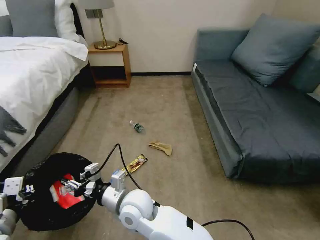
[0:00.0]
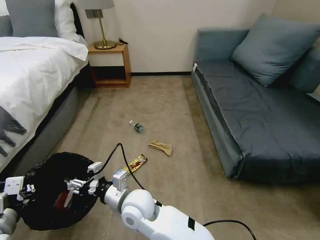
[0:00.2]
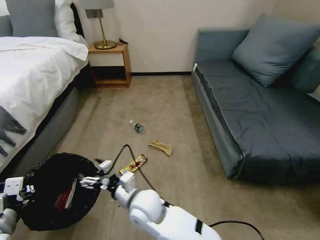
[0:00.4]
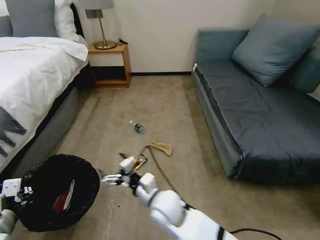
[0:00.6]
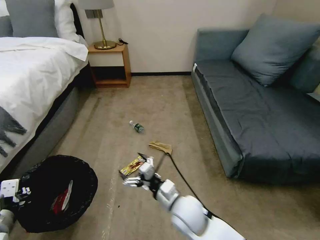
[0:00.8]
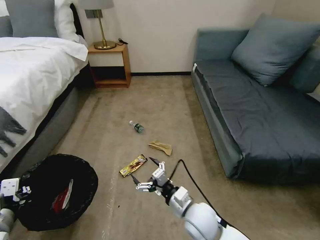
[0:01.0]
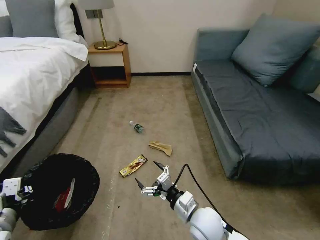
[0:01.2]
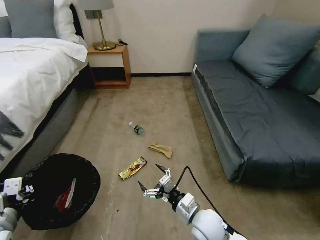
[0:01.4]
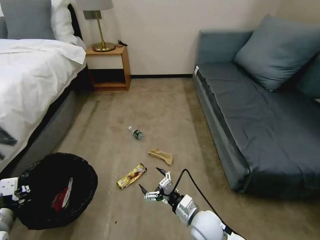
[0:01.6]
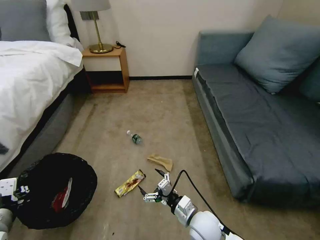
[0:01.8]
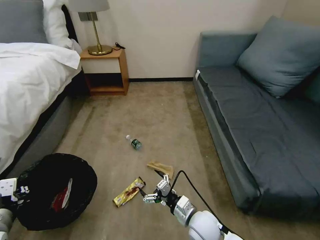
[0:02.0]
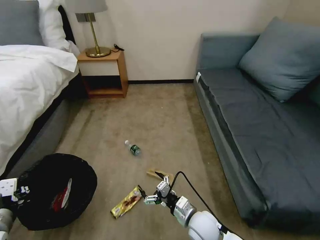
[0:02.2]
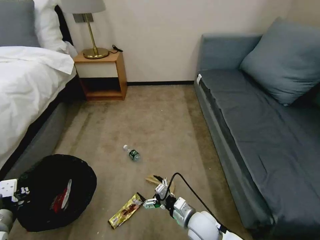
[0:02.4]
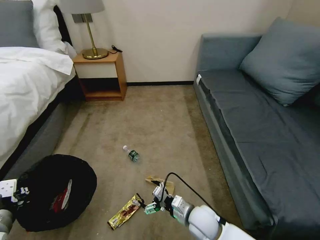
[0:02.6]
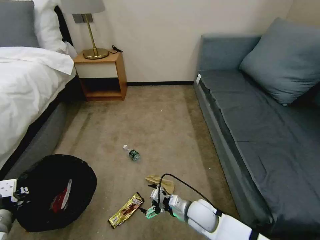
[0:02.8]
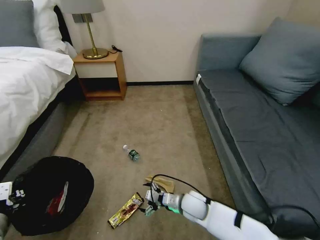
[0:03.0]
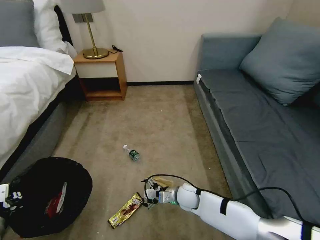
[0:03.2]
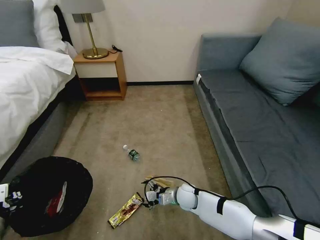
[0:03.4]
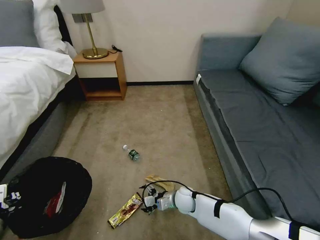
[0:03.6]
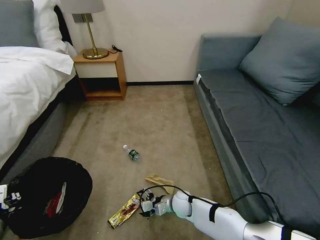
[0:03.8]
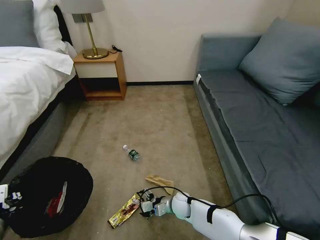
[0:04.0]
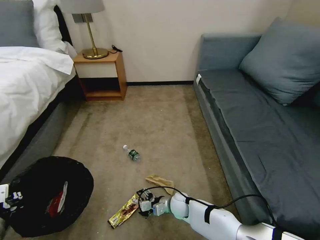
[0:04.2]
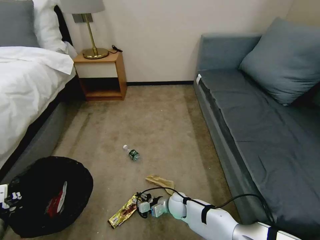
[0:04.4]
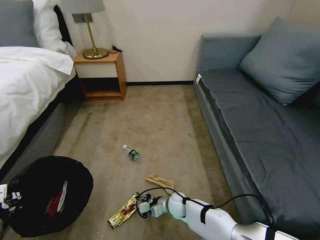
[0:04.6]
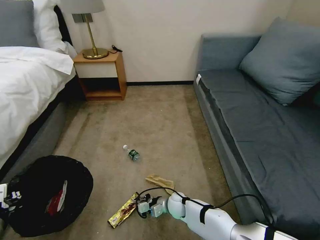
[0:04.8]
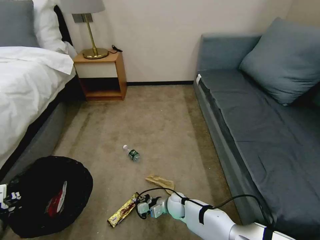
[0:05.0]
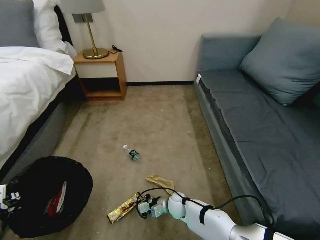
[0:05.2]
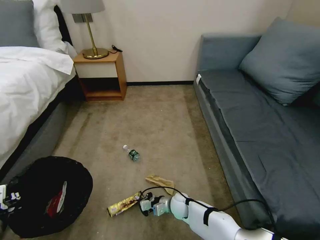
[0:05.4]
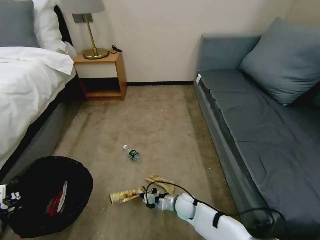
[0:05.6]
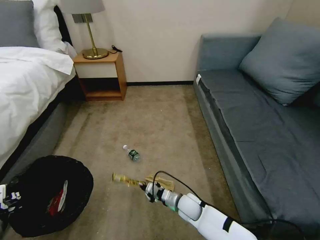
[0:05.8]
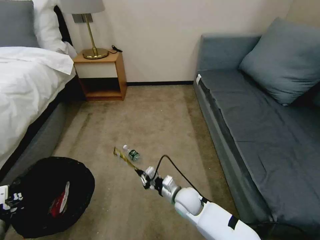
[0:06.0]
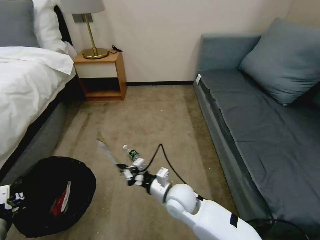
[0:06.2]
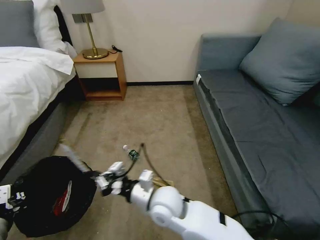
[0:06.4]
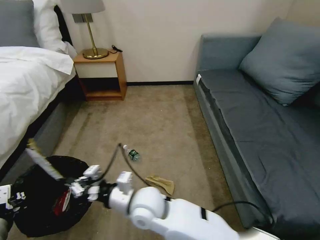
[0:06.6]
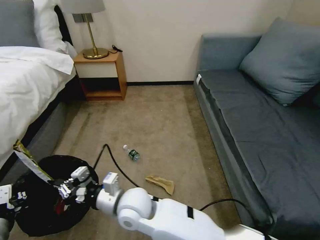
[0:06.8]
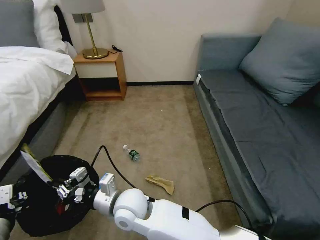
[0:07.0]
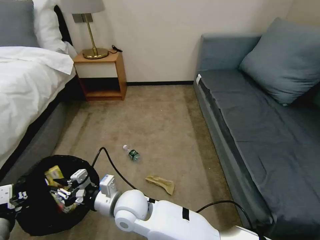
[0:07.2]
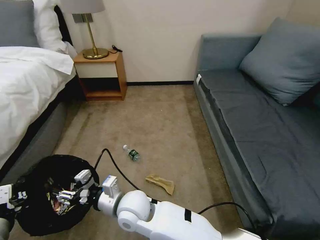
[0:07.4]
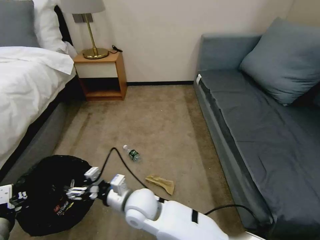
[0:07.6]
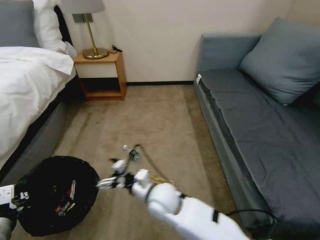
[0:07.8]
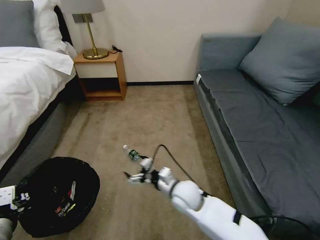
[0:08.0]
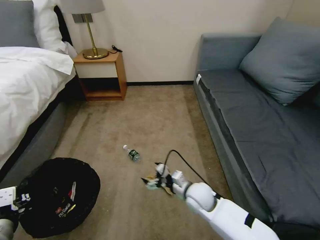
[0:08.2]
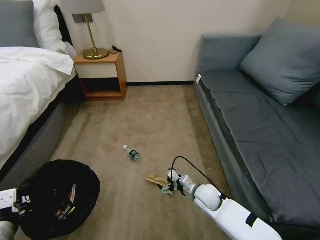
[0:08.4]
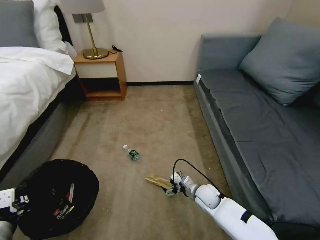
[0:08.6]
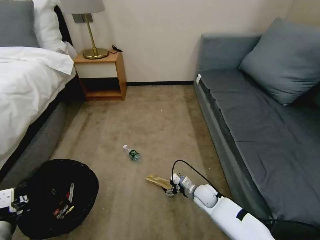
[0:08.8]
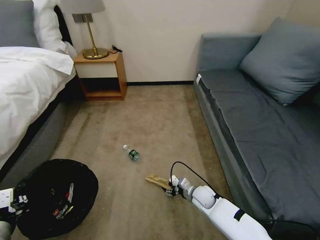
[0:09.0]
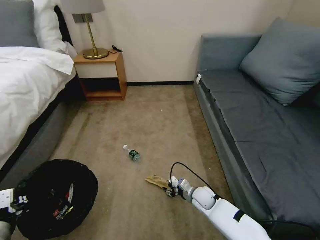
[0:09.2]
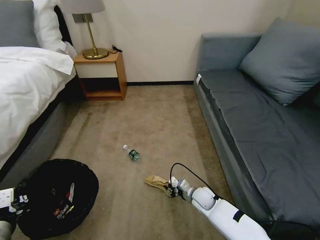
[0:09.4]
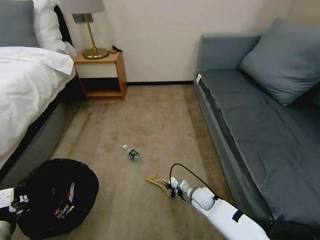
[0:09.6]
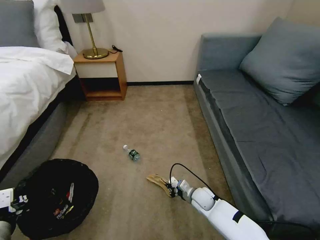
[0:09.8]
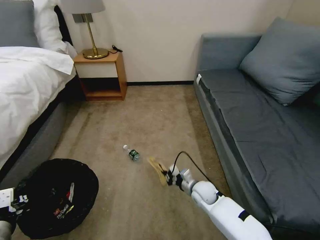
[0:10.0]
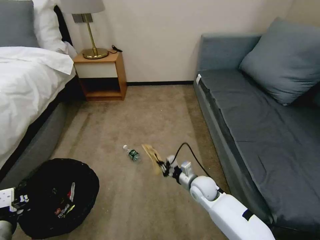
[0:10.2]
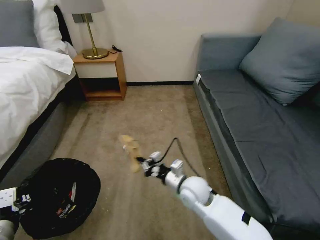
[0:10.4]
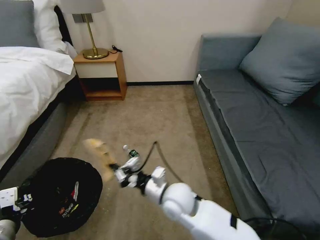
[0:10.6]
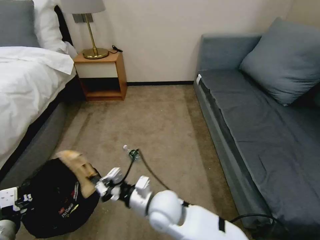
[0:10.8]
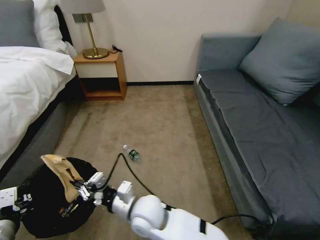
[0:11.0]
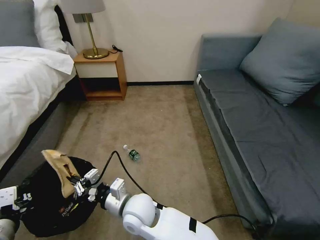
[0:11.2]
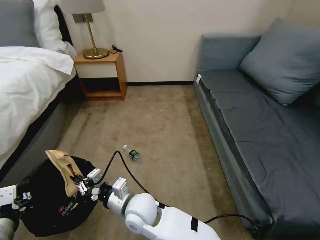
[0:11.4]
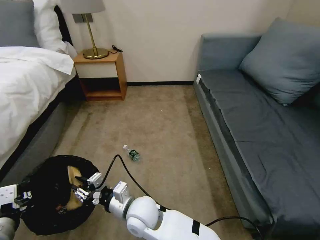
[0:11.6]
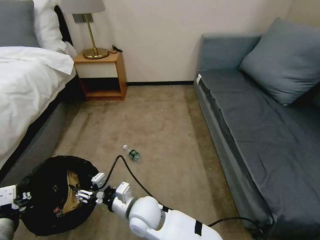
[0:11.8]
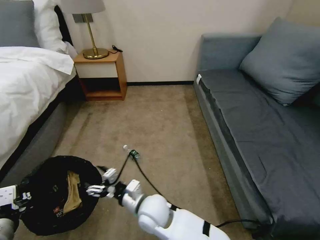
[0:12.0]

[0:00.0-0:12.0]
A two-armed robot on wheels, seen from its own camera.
Task of the whole recording: Pick up the trash bin, then pick up the garbage on the floor and place it into the trash bin.
0:00.0 to 0:01.6: The right gripper heads to the right, covering roughly 20 cm, and opens up.
0:01.6 to 0:03.0: The right gripper heads forward and downward, covering about 10 cm.
0:03.0 to 0:04.4: The right gripper is displaced downward by approximately 10 cm.
0:04.4 to 0:06.0: The right gripper travels upward by some 10 cm, and closes.
0:06.0 to 0:07.6: The right gripper goes approximately 20 cm to the left and upward, and opens its fingers.
0:07.6 to 0:09.0: The right gripper travels to the right and downward by some 30 cm.
0:09.0 to 0:10.4: The right gripper shifts approximately 15 cm upward and to the left, and closes up.
0:10.4 to 0:12.0: The right gripper is displaced to the left and backward by some 15 cm, and opens its fingers.

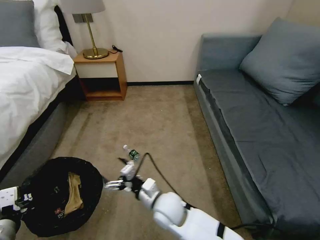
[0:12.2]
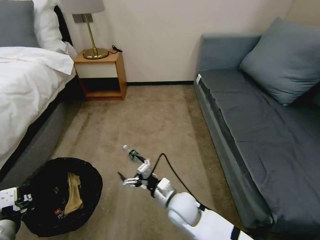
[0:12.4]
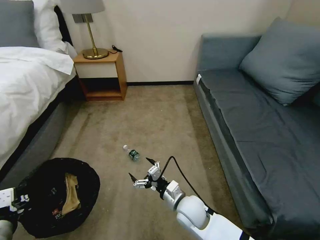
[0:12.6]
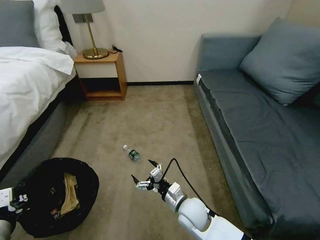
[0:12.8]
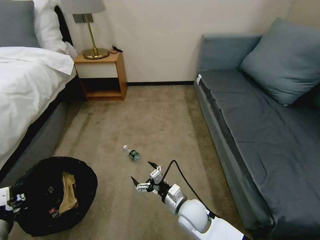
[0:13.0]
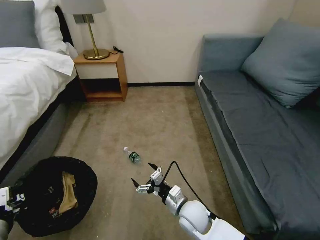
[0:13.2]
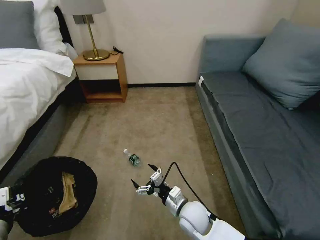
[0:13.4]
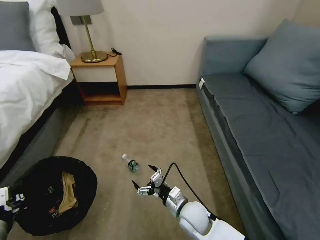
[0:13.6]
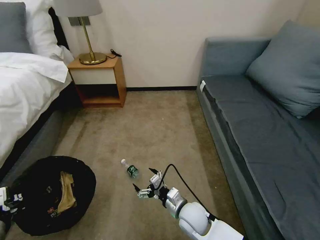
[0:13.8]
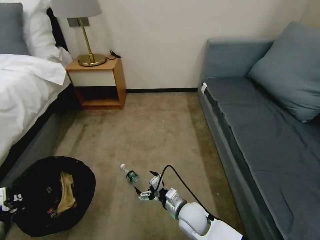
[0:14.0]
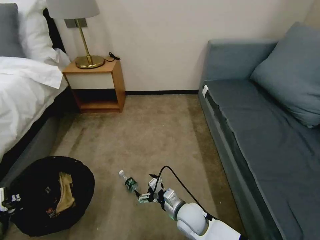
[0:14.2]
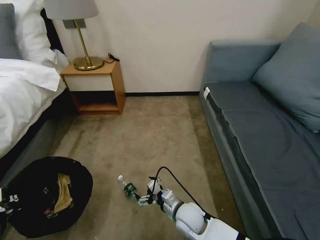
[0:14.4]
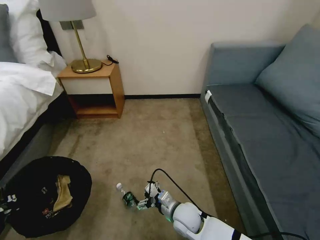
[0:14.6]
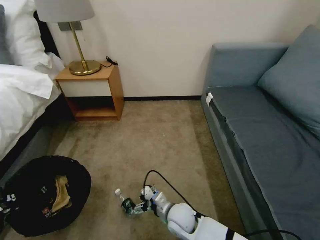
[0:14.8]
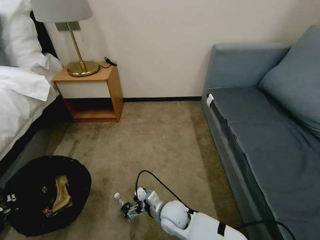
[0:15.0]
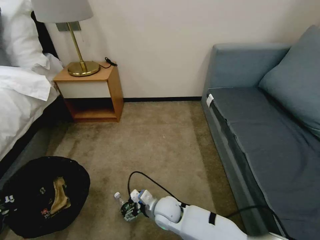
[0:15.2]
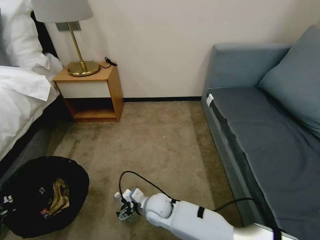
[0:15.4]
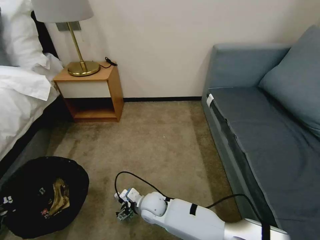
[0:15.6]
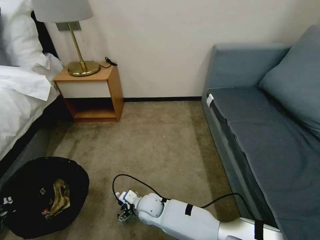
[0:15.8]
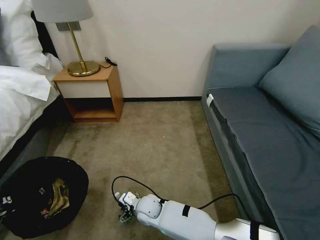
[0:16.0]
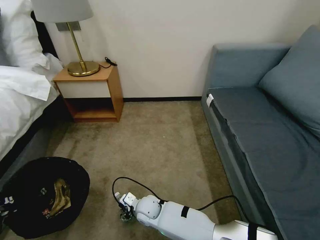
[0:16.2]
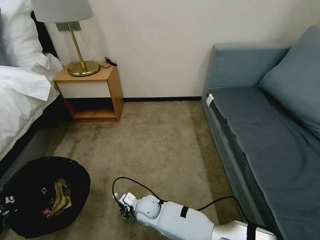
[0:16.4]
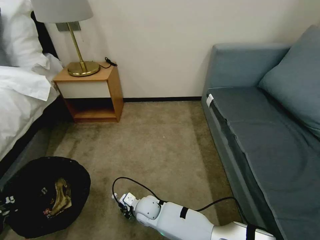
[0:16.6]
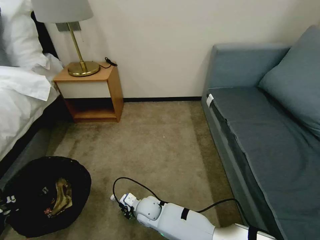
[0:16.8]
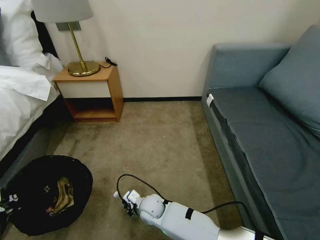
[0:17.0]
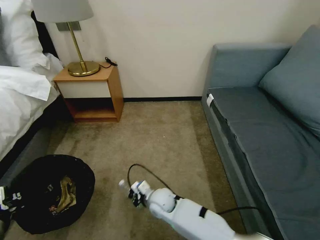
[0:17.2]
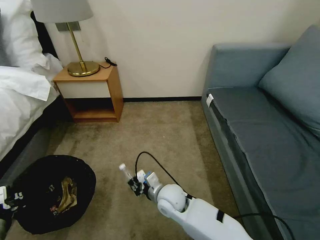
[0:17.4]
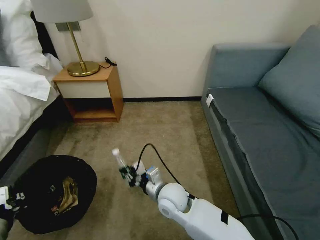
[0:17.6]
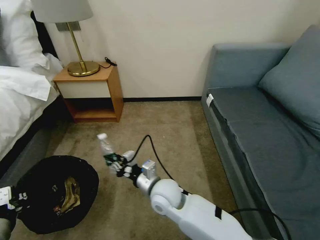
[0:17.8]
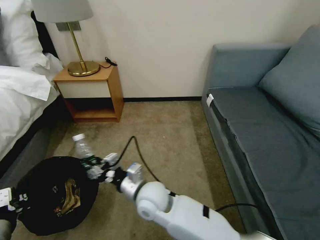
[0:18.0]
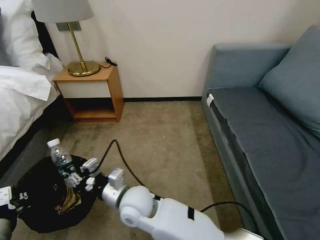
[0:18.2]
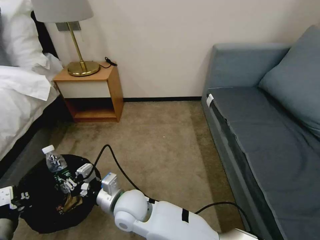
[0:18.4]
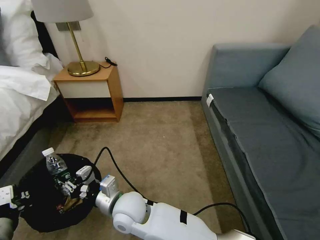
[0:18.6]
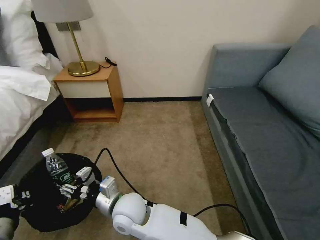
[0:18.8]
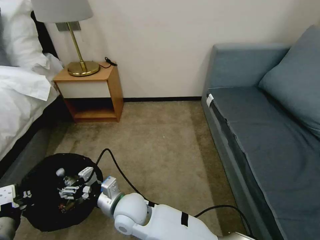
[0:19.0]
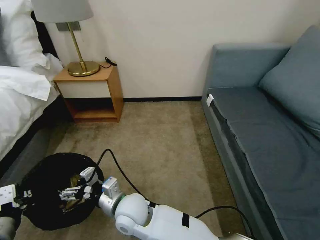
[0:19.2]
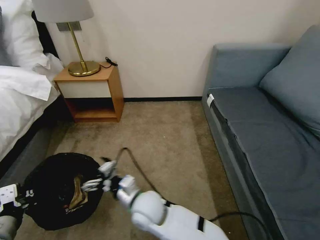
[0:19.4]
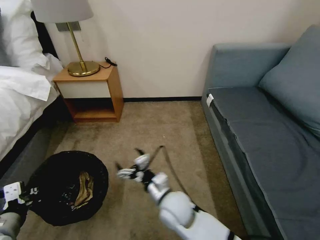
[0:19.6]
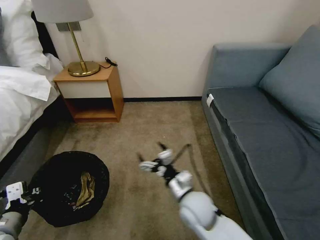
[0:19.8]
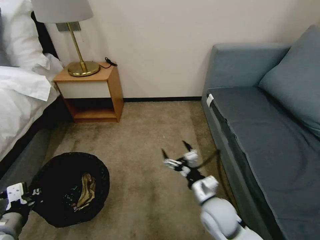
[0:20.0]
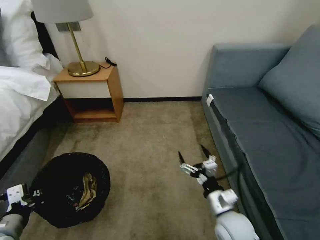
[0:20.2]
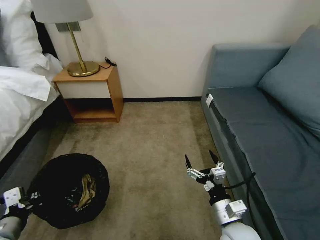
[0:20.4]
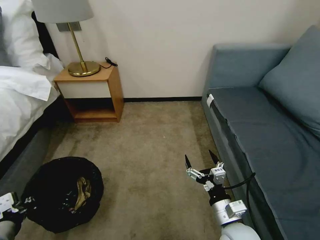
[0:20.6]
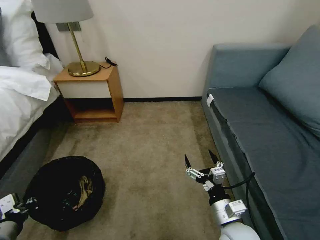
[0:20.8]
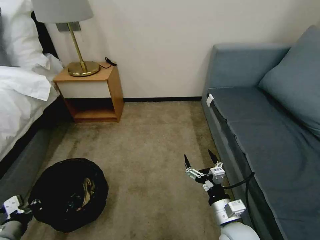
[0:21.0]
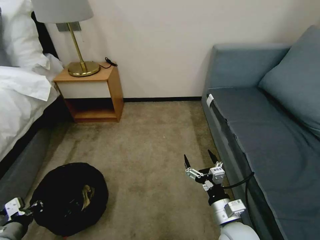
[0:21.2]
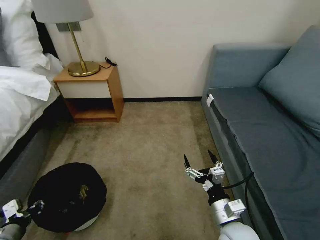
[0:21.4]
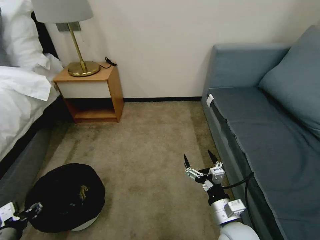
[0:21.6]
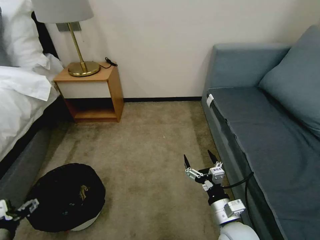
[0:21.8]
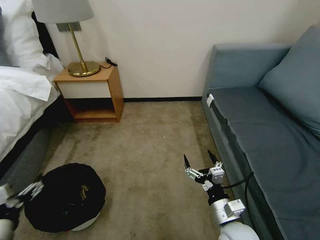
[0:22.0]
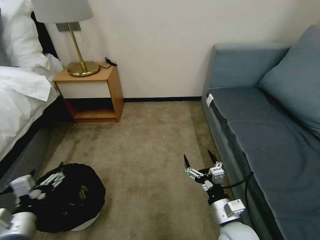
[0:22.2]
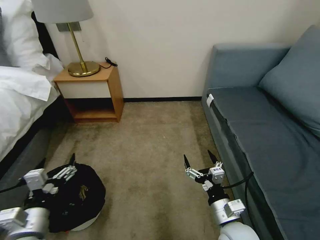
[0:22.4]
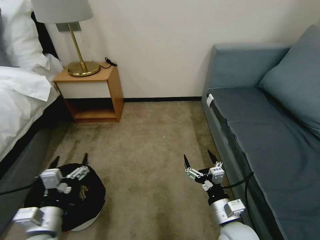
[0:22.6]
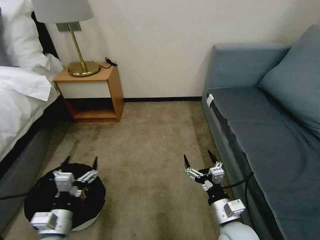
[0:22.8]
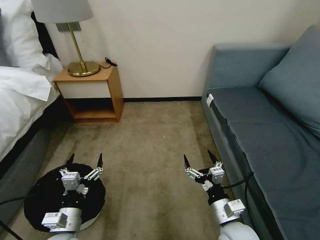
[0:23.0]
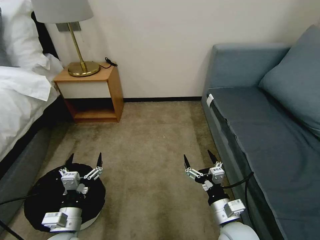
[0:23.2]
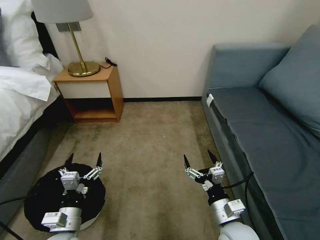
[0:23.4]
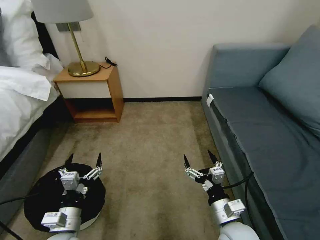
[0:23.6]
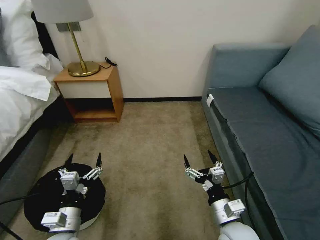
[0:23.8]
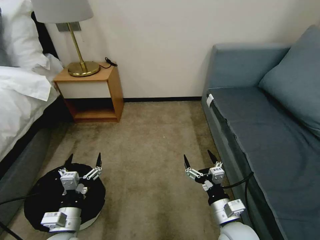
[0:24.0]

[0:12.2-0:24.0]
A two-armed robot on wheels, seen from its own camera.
Task of the whole recording: Pick up the trash bin, then pick up the garbage on the floor and place it into the trash bin.
0:12.2 to 0:13.6: The right gripper goes approximately 10 cm to the right and downward.
0:13.6 to 0:15.2: The right gripper heads to the left, covering some 10 cm.
0:15.2 to 0:16.6: The right gripper shifts approximately 5 cm to the left, and closes its fingers.
0:16.6 to 0:18.2: The right gripper travels upward by roughly 20 cm.
0:18.2 to 0:19.6: The right gripper heads to the right, covering some 10 cm, and opens its fingers.
0:19.6 to 0:21.0: The left gripper shifts roughly 5 cm downward; the right gripper shifts roughly 20 cm to the right and backward.
0:21.0 to 0:22.6: The left gripper goes some 15 cm to the right, and opens.
0:22.6 to 0:24.0: The left gripper ends up approximately 5 cm from where it was.
